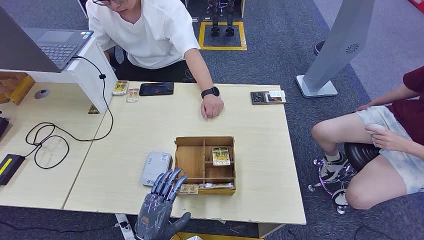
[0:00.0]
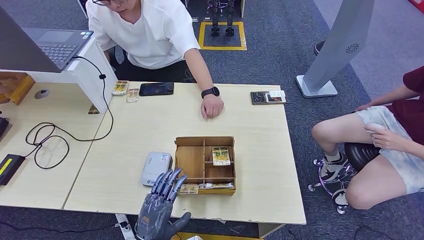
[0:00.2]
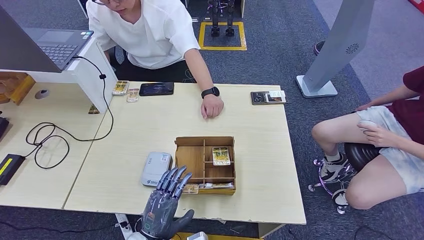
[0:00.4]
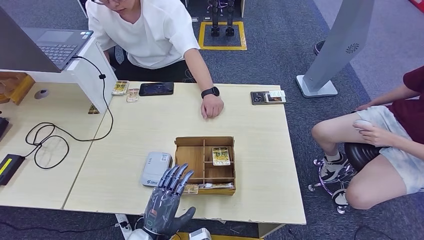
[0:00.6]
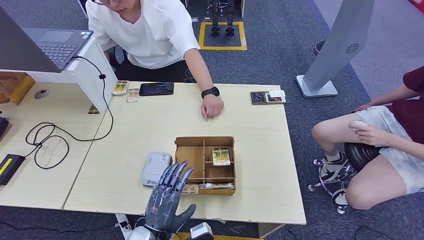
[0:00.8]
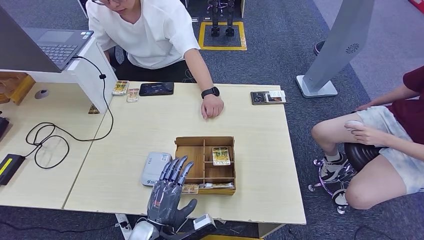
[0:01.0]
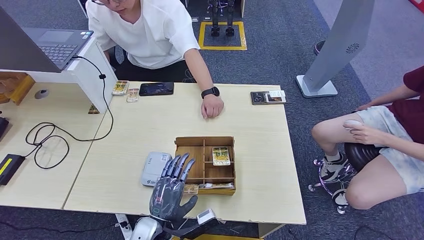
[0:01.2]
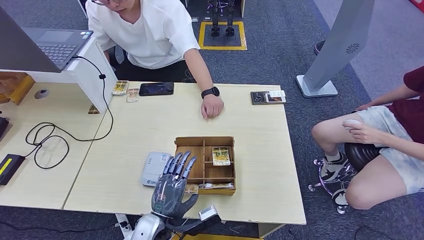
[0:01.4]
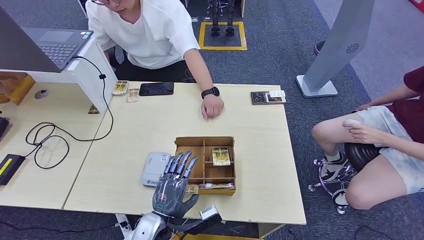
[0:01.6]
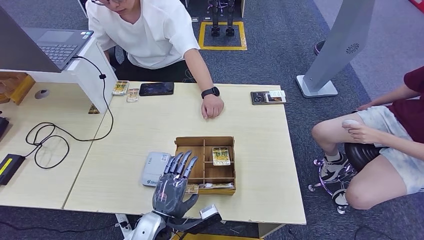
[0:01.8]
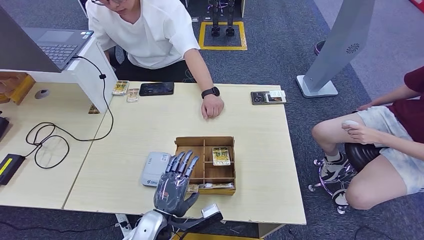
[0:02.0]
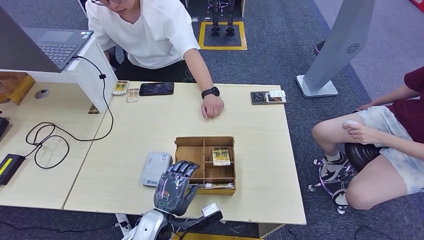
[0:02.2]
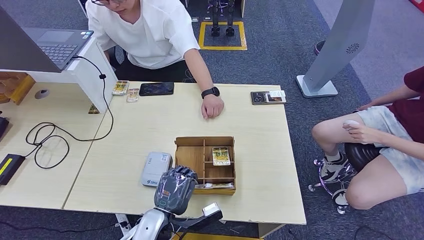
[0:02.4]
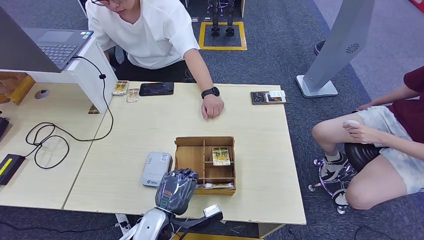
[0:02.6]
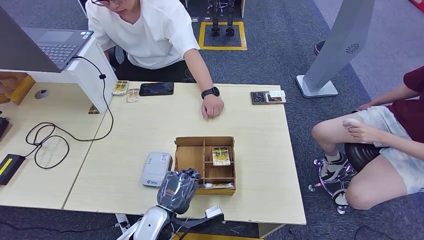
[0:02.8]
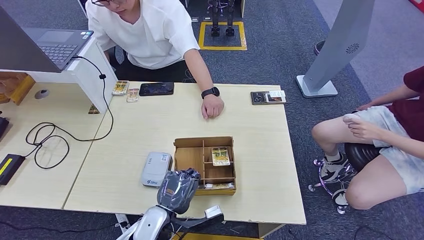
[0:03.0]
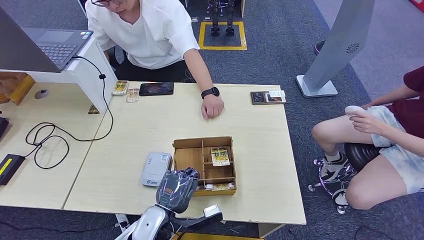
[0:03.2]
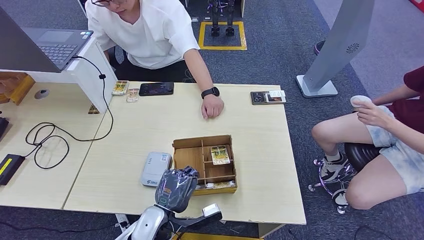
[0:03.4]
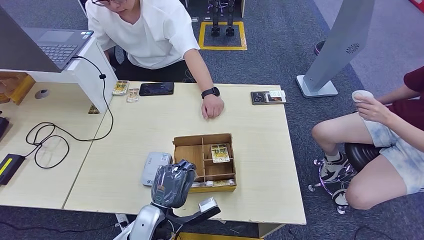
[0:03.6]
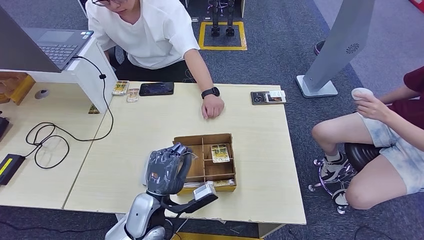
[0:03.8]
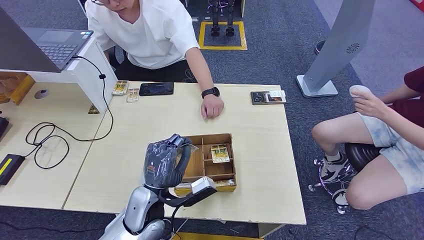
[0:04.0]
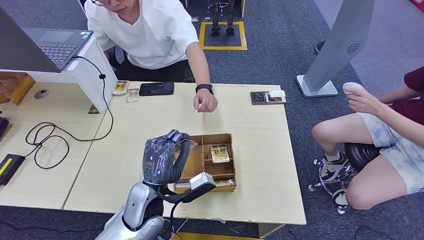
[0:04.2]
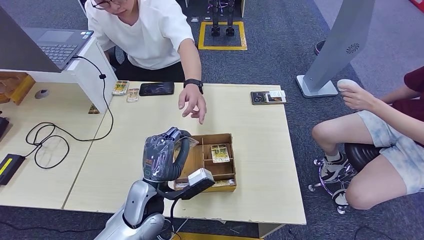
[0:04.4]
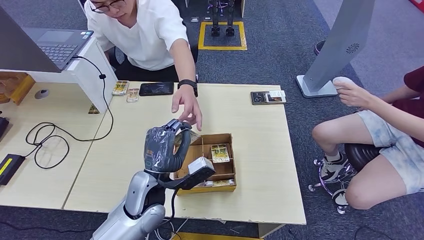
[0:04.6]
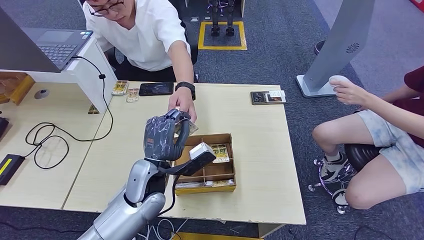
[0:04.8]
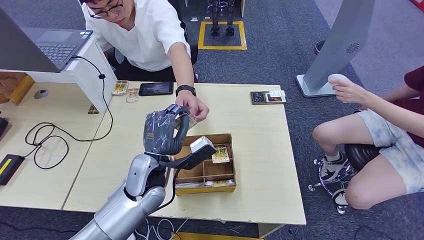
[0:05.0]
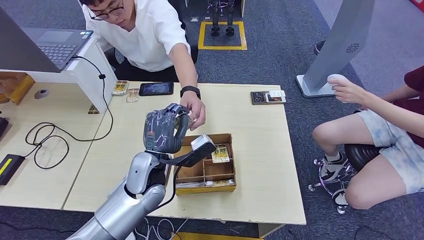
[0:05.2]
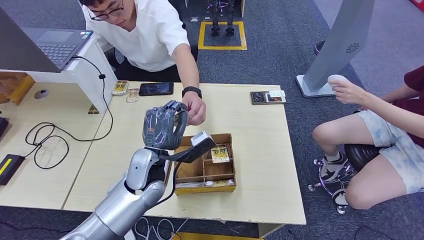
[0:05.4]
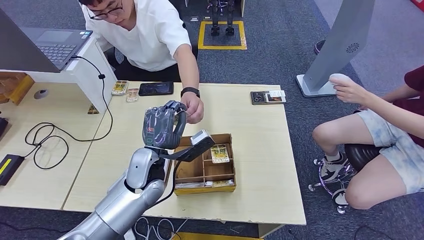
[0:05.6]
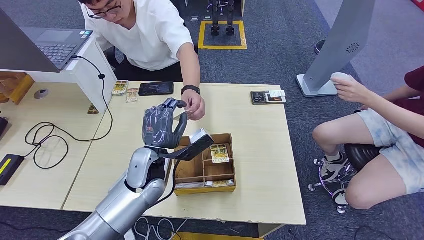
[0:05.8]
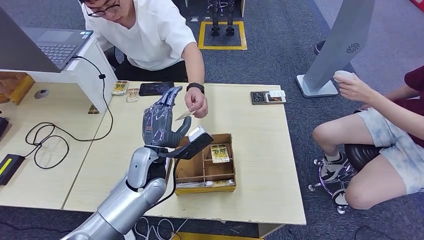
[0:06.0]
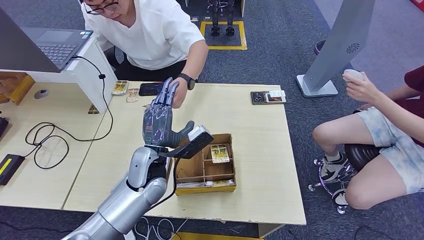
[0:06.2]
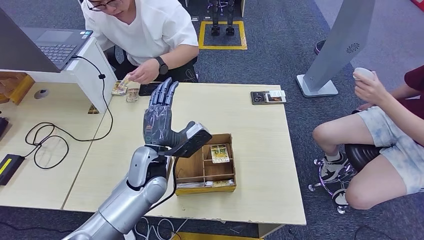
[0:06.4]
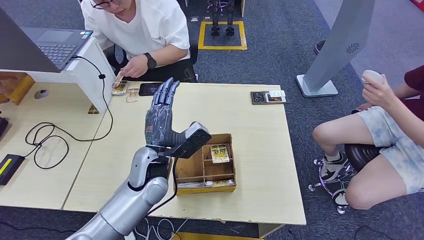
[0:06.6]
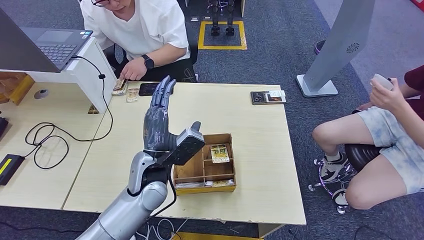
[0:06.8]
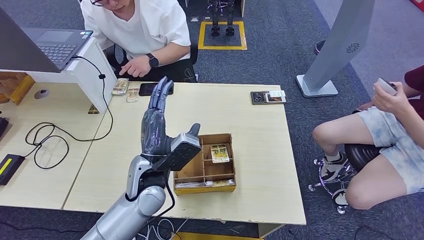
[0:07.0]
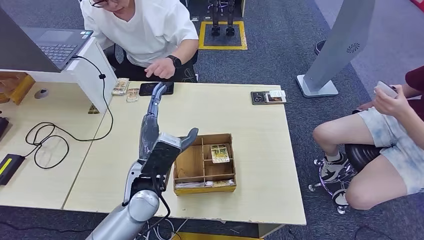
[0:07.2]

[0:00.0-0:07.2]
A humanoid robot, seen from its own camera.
Step, 0:00.0 to 0:04.2: Pick up the room key from the key card box.
Step, 0:05.0 to 0:07.0: Hand the room key to the person.
0:00.0 to 0:01.4: The left hand changes place by approximately 5 cm.
0:01.4 to 0:02.8: The hands move only a little.
0:02.8 to 0:04.4: The left hand moves upward, some 10 cm.
0:04.4 to 0:05.8: The left hand is displaced forward by roughly 5 cm.

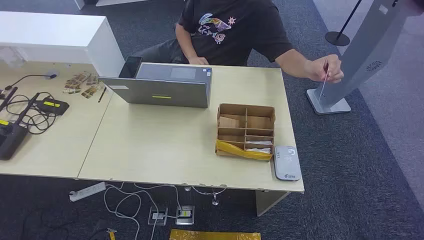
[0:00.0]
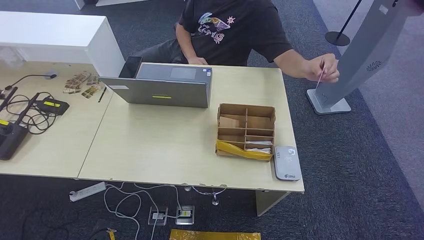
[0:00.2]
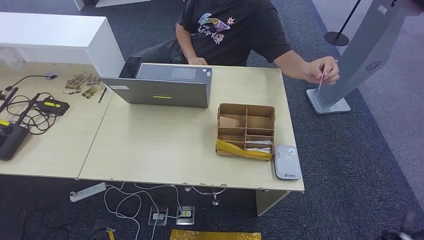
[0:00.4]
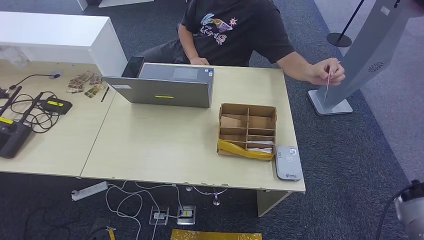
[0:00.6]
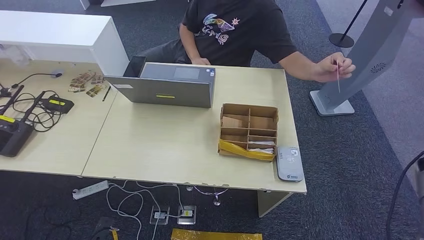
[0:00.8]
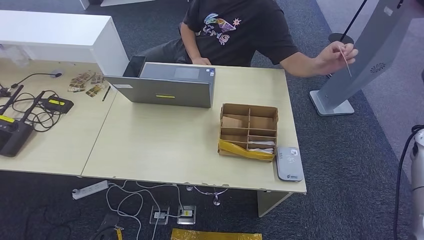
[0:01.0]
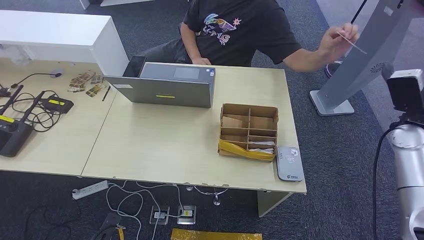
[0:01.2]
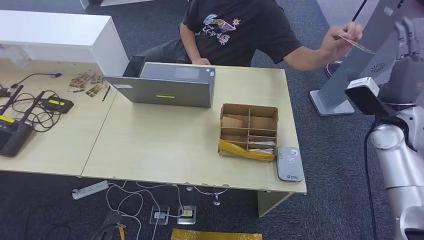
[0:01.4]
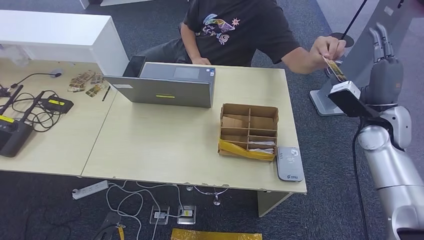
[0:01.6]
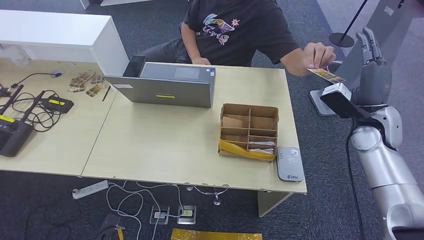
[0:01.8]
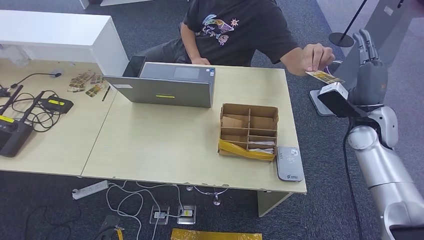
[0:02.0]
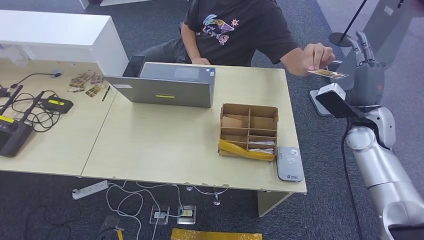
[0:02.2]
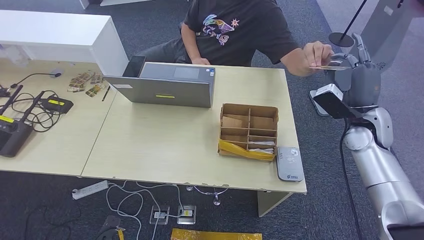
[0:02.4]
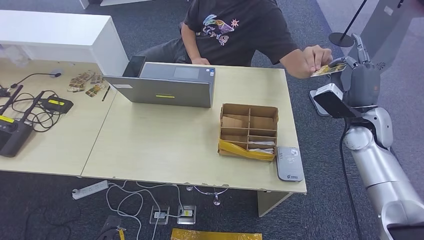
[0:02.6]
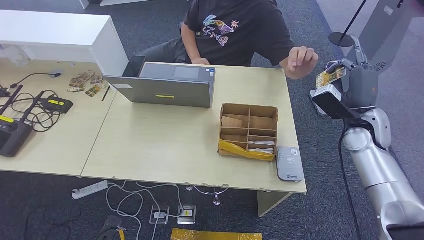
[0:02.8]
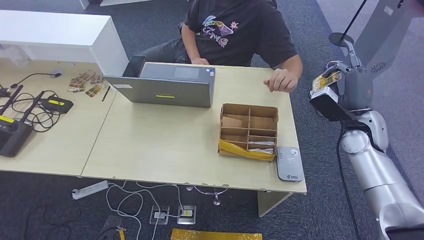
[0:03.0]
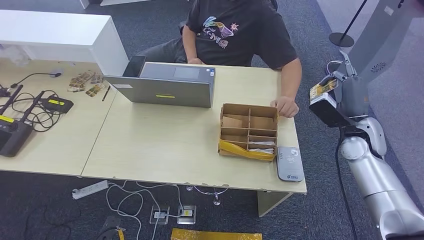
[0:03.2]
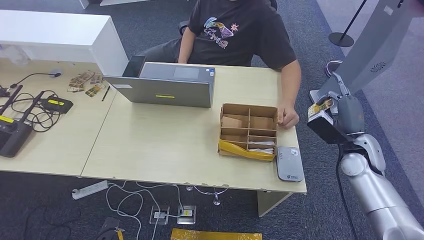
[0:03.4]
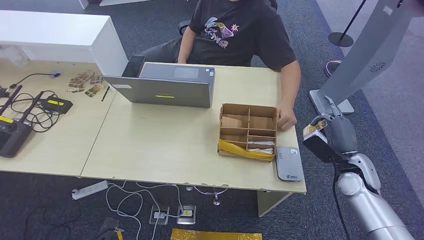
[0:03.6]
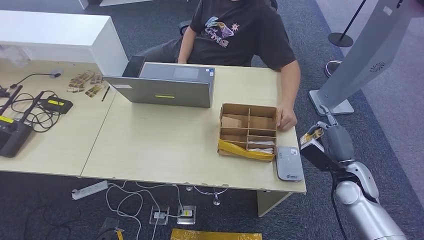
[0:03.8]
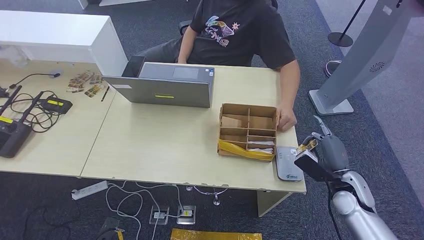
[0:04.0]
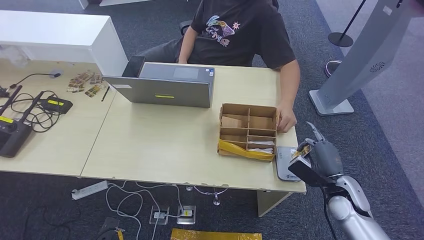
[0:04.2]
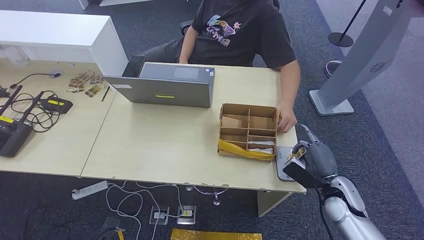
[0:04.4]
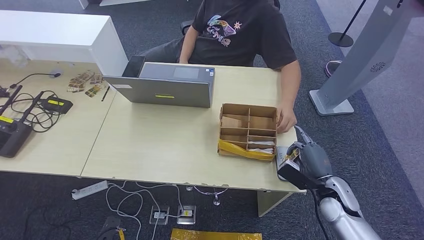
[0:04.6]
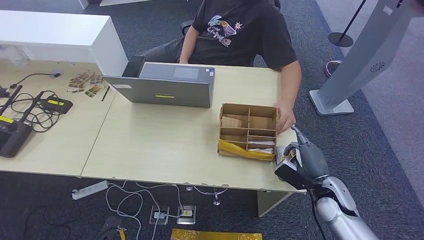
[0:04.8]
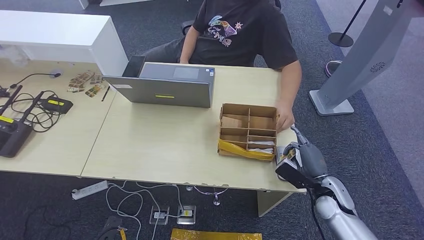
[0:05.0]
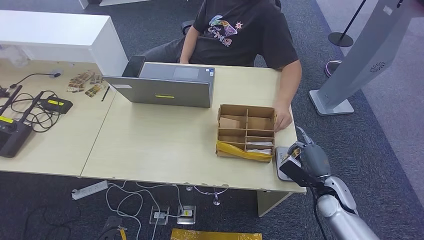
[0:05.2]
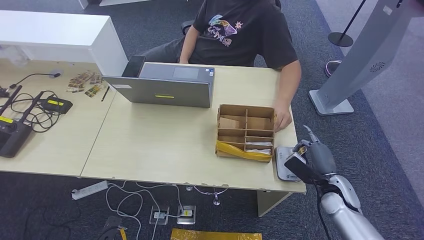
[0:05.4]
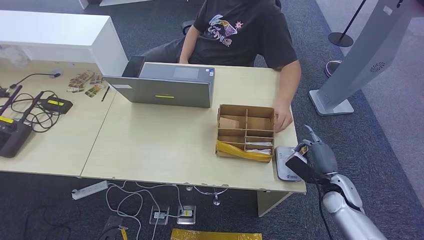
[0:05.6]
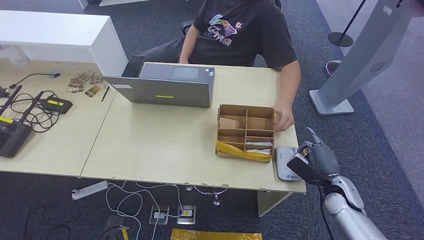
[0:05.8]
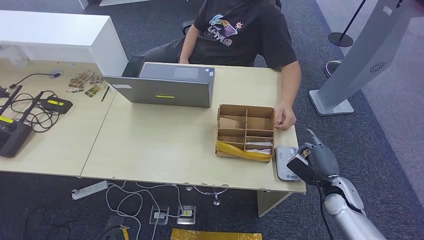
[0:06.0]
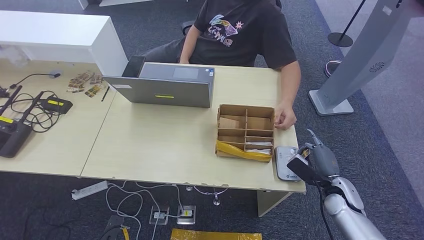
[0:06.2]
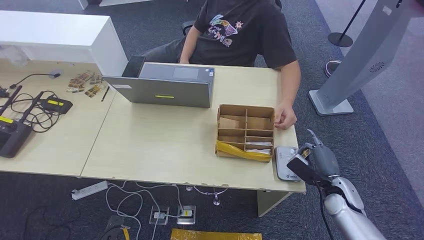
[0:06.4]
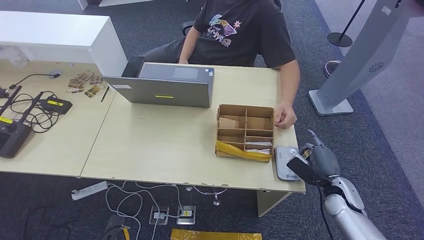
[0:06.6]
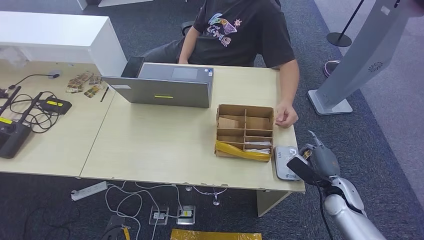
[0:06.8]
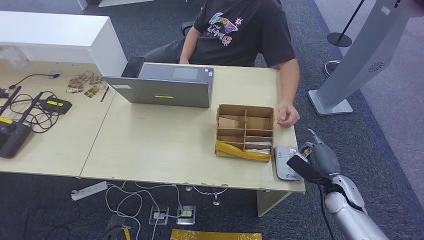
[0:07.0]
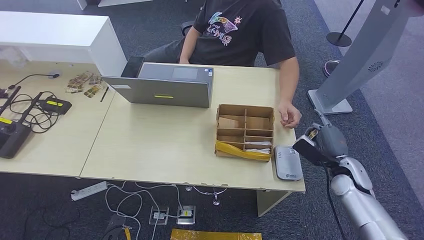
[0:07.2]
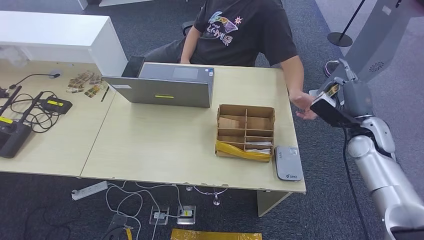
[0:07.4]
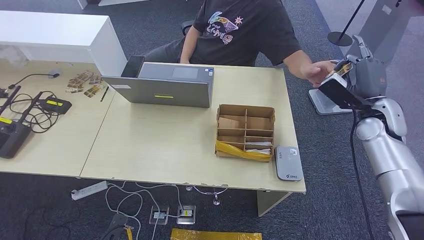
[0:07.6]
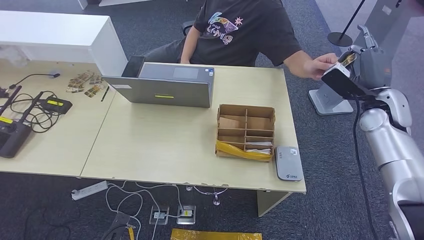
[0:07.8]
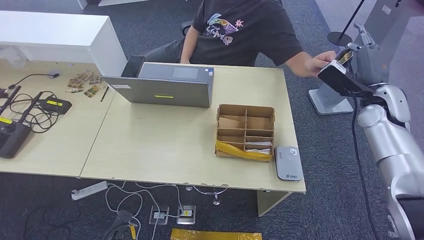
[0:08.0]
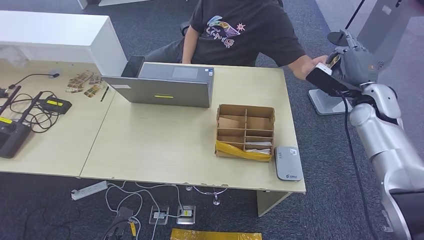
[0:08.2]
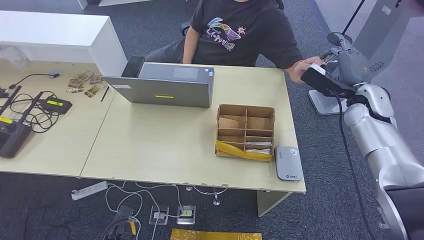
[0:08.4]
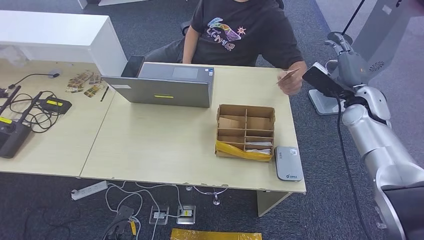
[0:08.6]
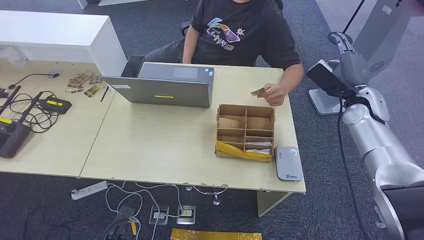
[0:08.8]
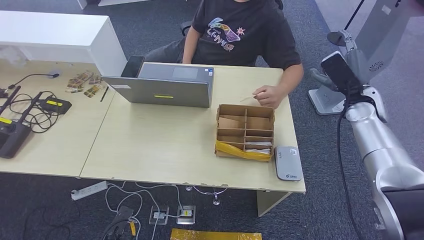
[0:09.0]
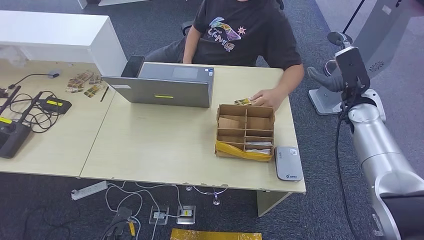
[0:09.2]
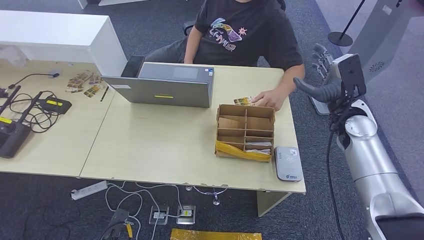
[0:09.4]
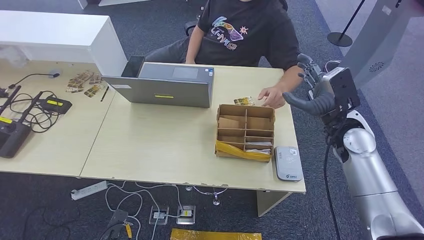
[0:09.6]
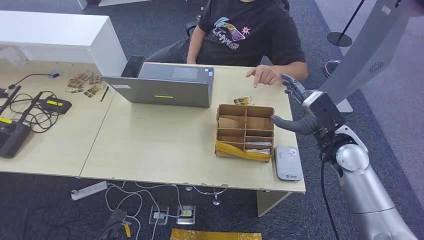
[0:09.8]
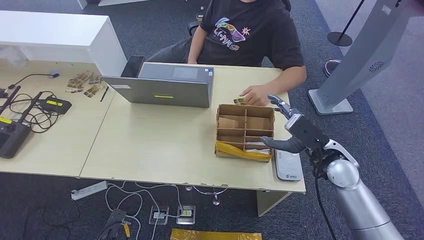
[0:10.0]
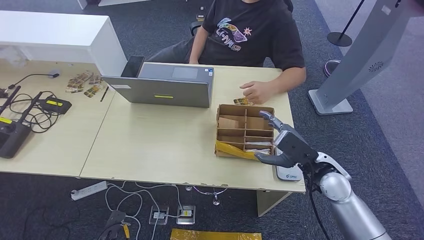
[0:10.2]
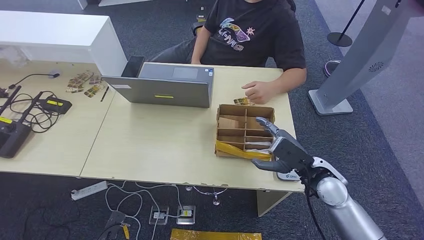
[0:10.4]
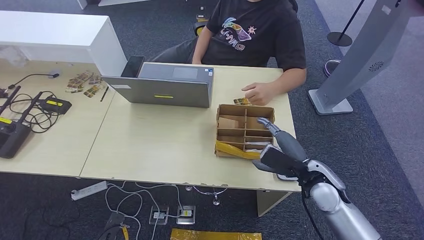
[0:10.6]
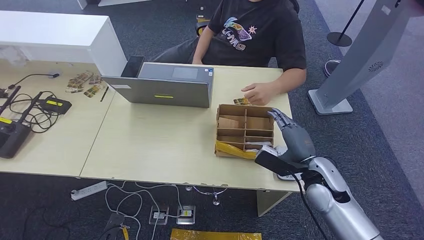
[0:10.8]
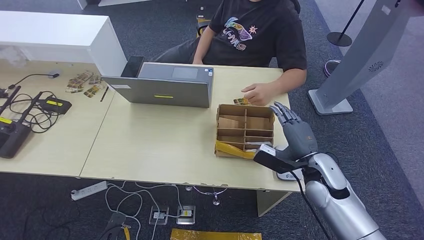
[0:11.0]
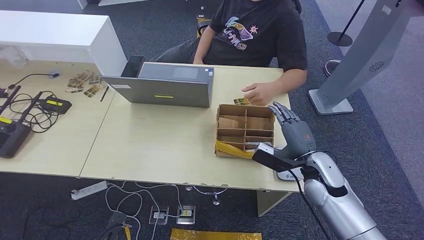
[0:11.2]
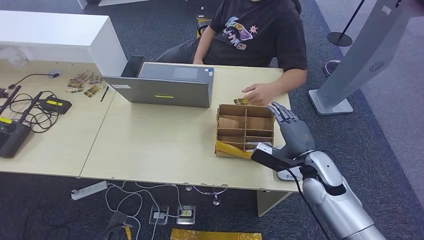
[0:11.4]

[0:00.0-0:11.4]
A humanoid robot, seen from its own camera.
Step, 0:00.0 to 0:02.2: Take the ID card from the person's hand.
Step, 0:02.6 to 0:06.2: Place the ID card on the card reader.
Step, 0:06.4 to 0:07.6: Hand the ID card to the person.
0:01.4 to 0:02.8: The right hand moves approximately 5 cm.
0:02.8 to 0:04.2: The right hand goes roughly 20 cm downward and backward.
0:04.2 to 0:05.6: There are only small adjustments of the hands.
0:05.6 to 0:07.2: The right hand shifts by roughly 5 cm.
0:07.2 to 0:08.6: The right hand shifts roughly 20 cm upward and forward.
0:08.6 to 0:10.0: The right hand travels backward, to the left and downward by approximately 15 cm.
0:10.0 to 0:11.4: The right hand changes place by about 5 cm.
